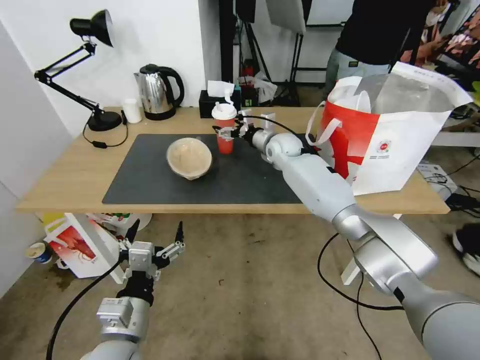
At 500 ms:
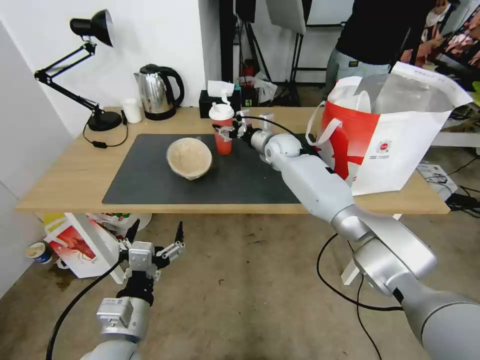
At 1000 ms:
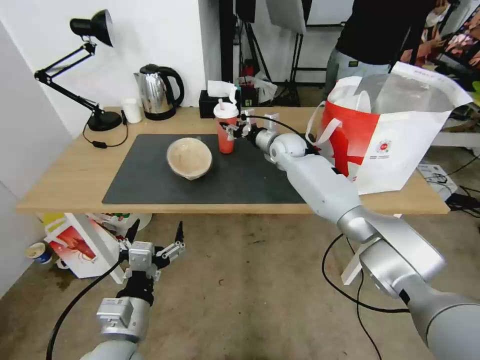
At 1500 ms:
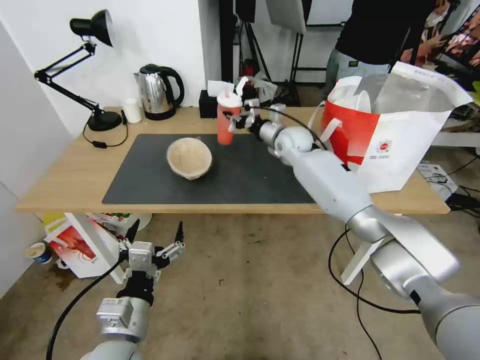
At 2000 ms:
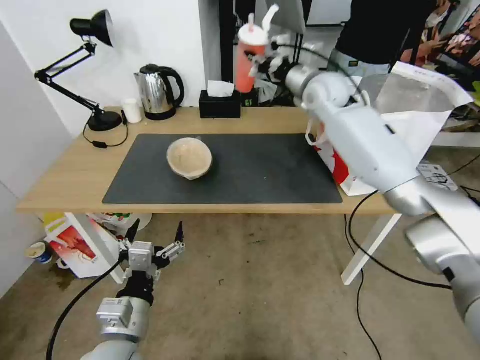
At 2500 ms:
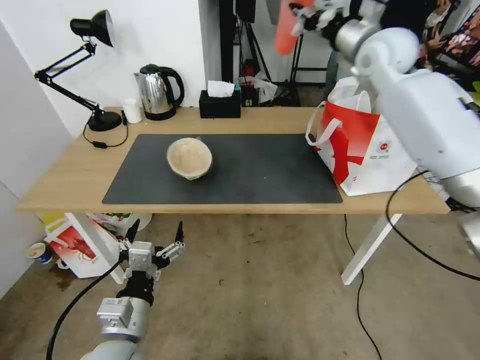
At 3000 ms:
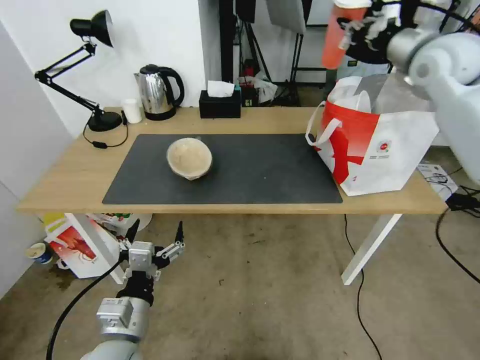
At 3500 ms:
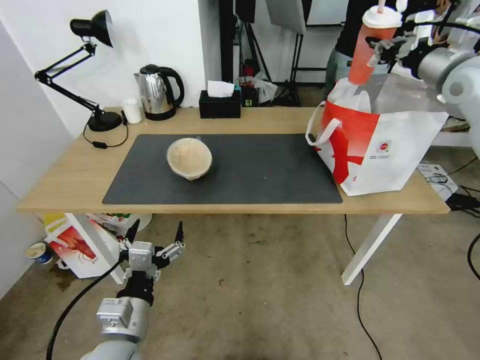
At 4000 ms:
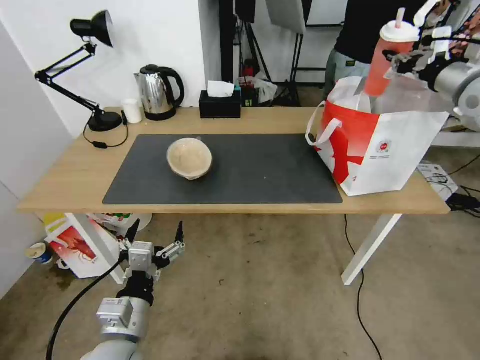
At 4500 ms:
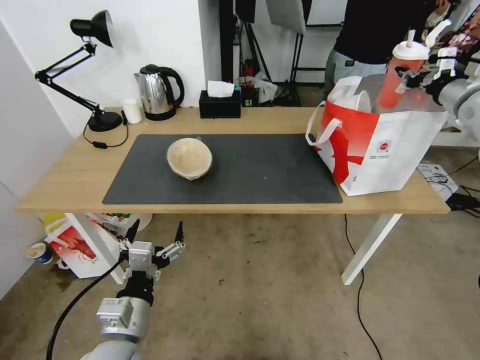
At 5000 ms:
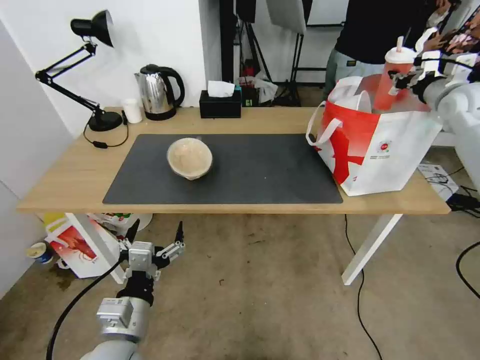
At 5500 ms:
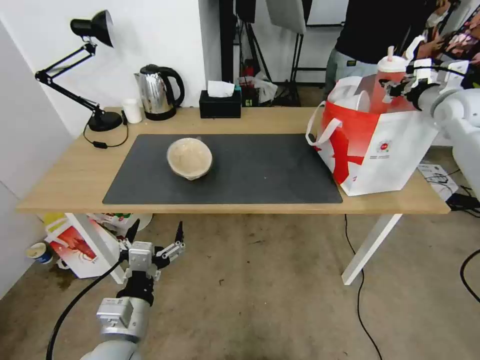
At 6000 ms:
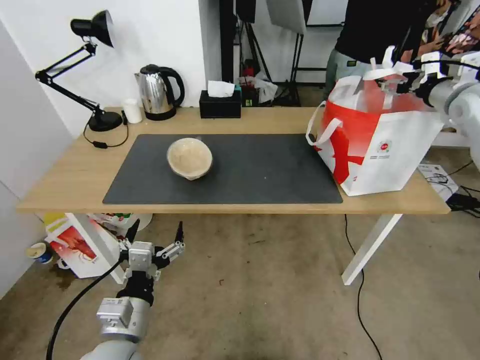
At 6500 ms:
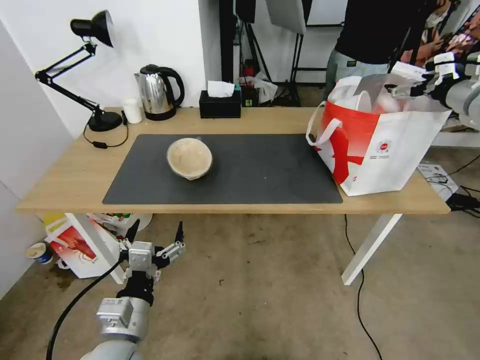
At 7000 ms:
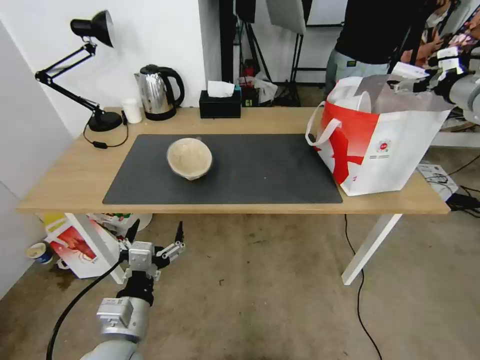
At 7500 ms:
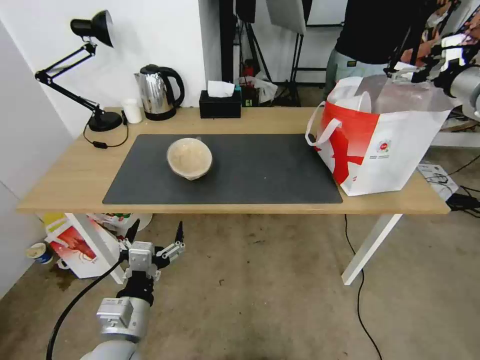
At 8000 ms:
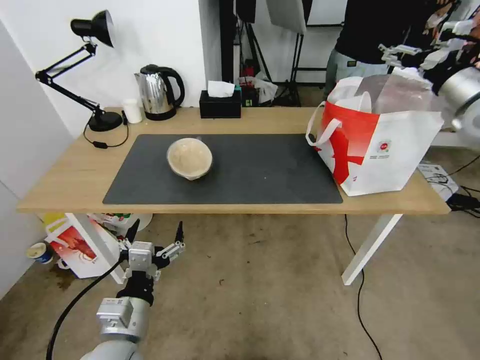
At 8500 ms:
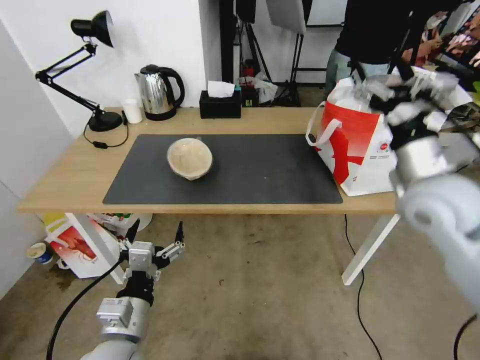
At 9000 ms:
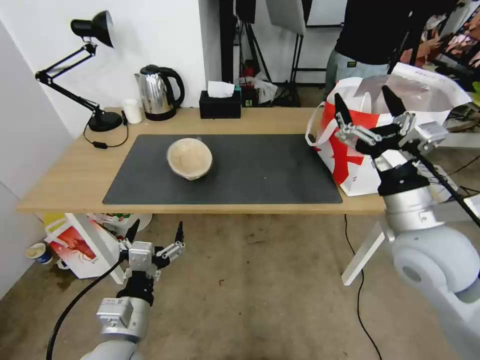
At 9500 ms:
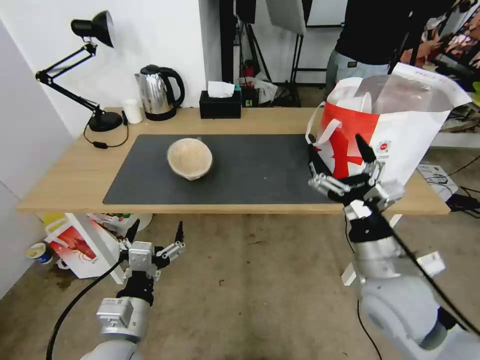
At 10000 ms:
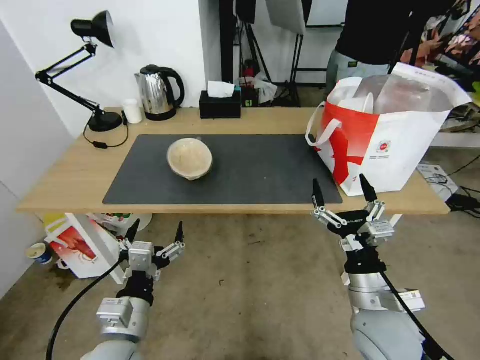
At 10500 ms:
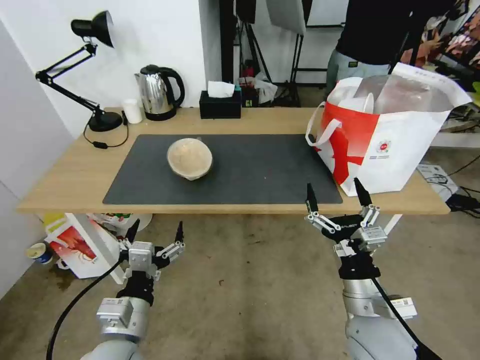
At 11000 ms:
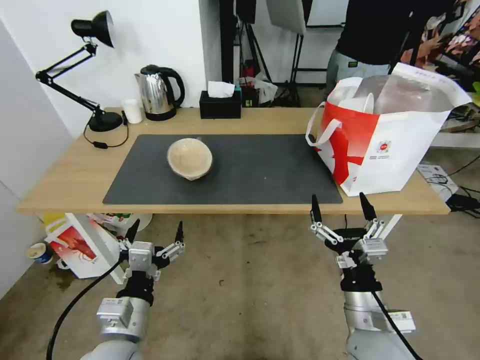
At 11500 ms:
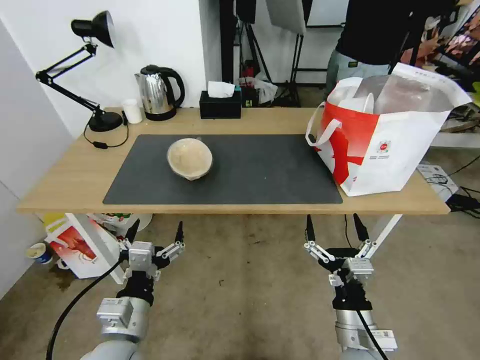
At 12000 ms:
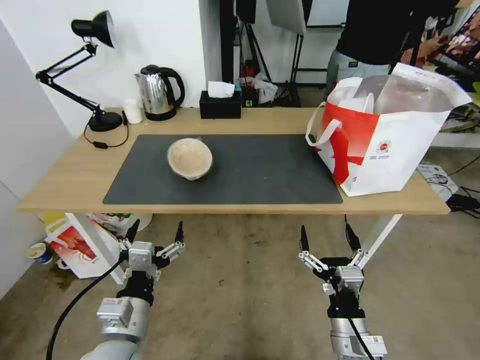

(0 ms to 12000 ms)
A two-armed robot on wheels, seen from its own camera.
Task of the whole recording: Pick up the trash from the table and place it into the takeout bag.
0 ms - 2000 ms: The right gripper goes approximately 20 cm upward, and closes its fingers.
2000 ms - 4000 ms: The right gripper travels to the right and backward by approximately 30 cm.
4000 ms - 6000 ms: The right gripper opens.
6000 ms - 8000 ms: The right gripper is displaced backward by approximately 5 cm.
8000 ms - 10000 ms: The right gripper shifts roughly 40 cm downward, backward and to the left.
10000 ms - 12000 ms: The right gripper heads downward and backward, covering approximately 10 cm.

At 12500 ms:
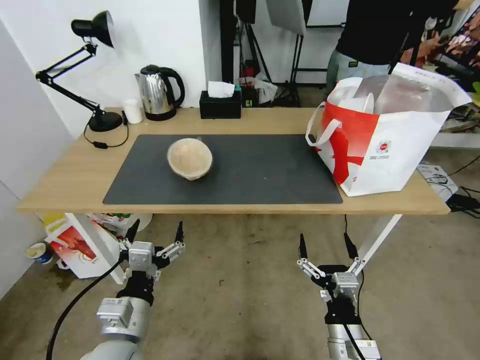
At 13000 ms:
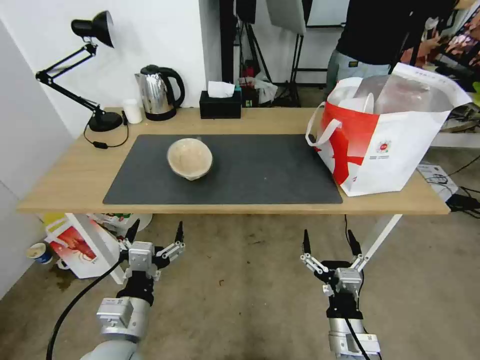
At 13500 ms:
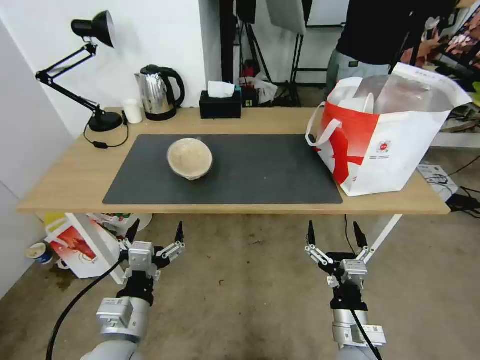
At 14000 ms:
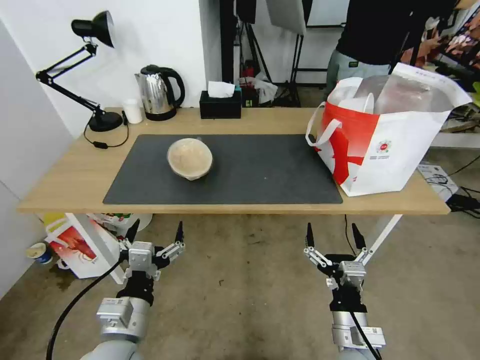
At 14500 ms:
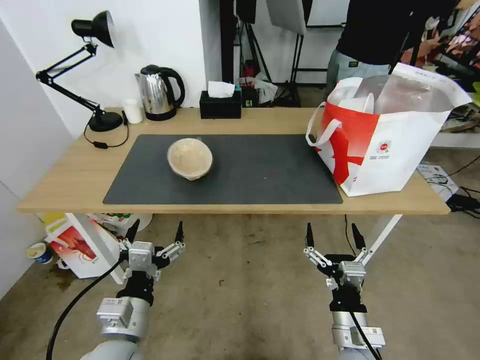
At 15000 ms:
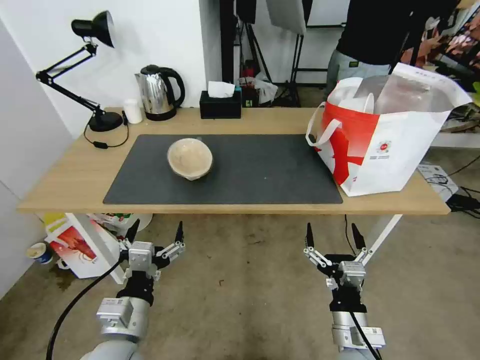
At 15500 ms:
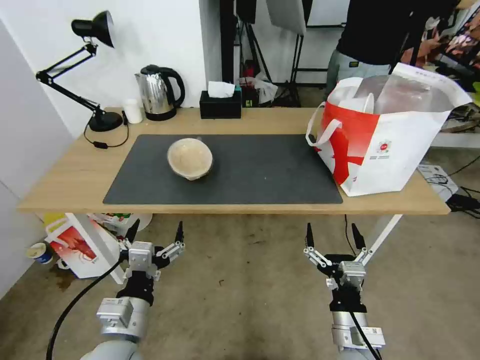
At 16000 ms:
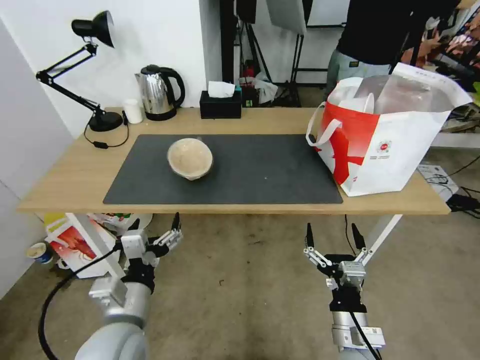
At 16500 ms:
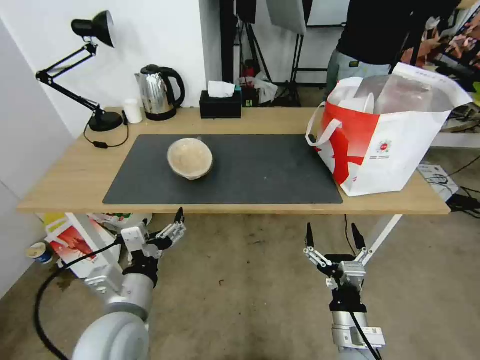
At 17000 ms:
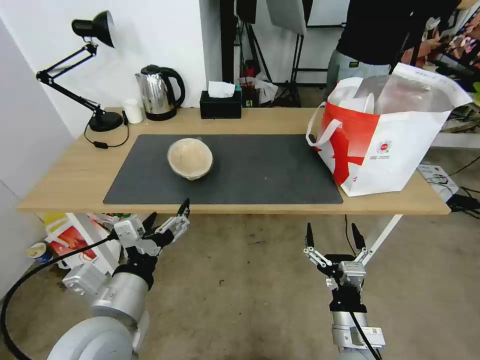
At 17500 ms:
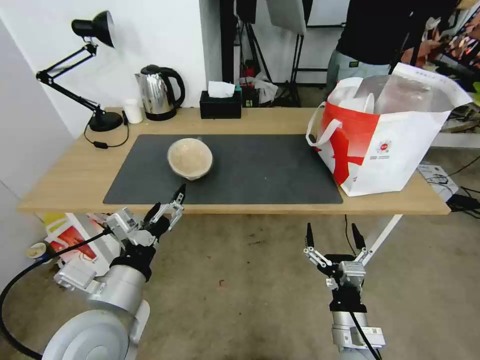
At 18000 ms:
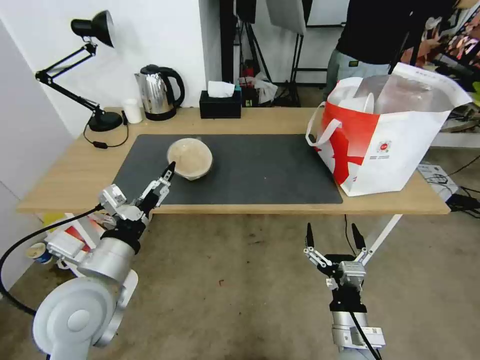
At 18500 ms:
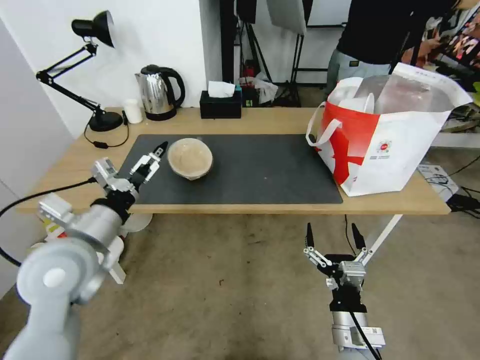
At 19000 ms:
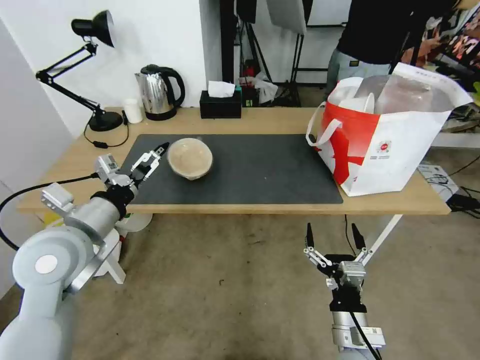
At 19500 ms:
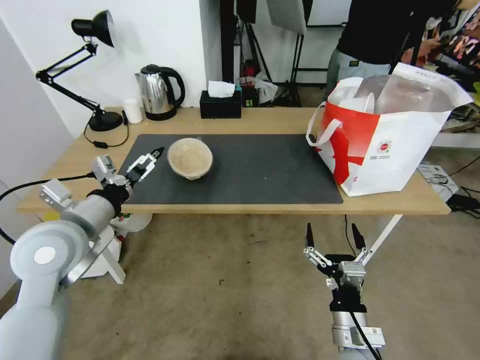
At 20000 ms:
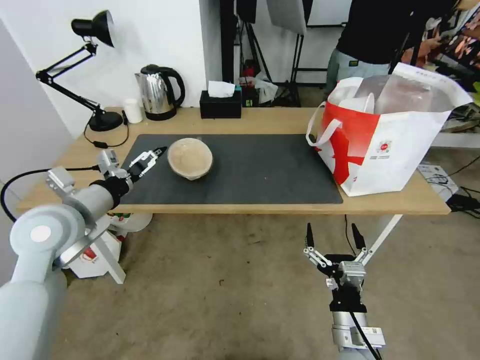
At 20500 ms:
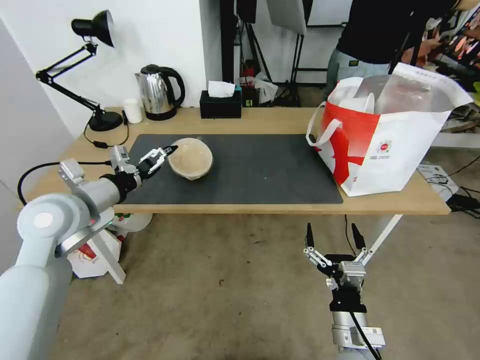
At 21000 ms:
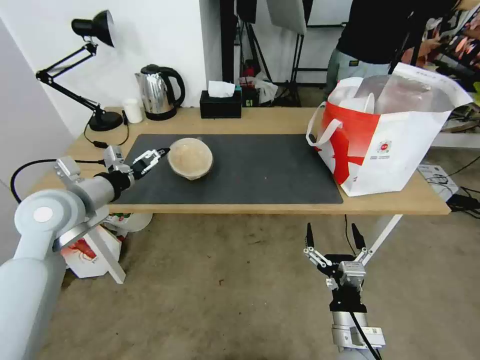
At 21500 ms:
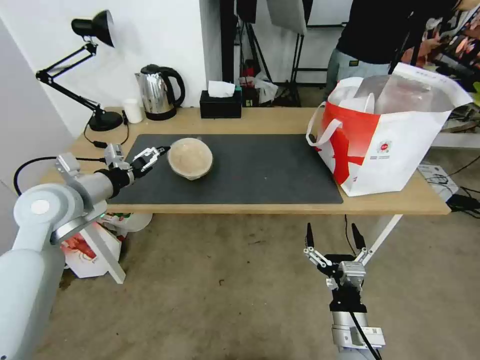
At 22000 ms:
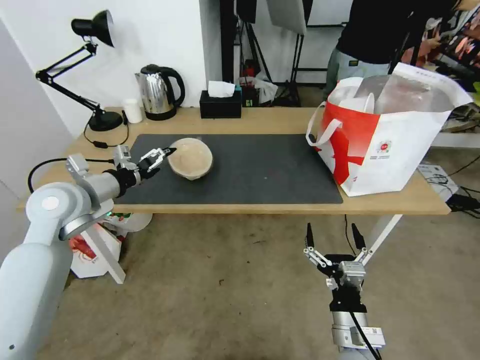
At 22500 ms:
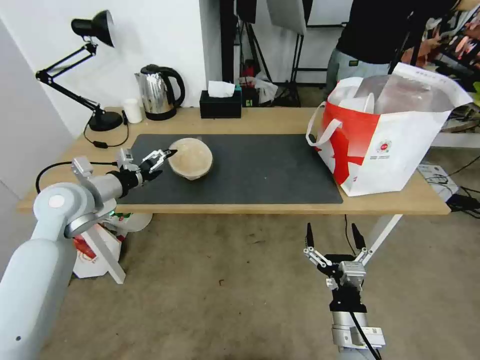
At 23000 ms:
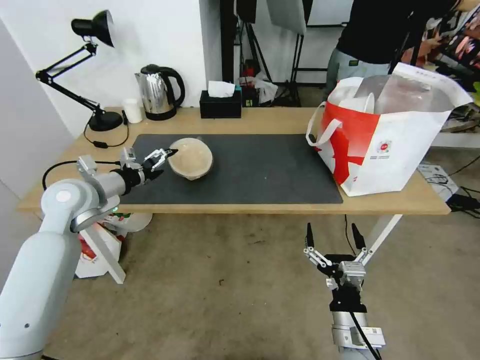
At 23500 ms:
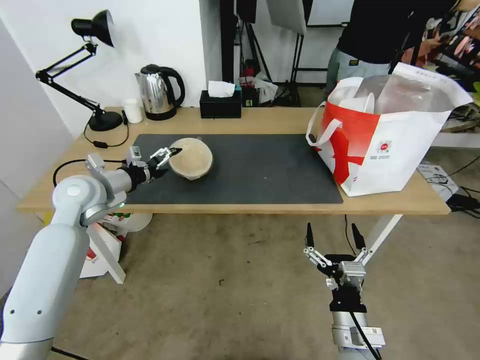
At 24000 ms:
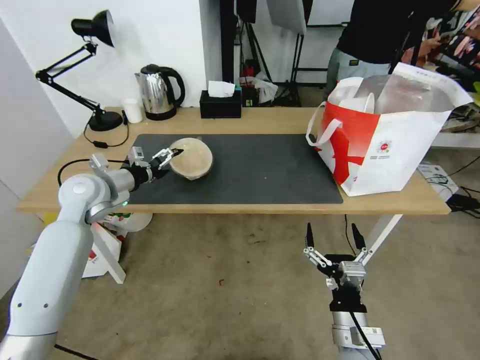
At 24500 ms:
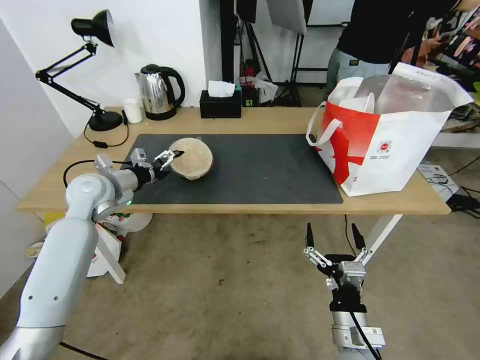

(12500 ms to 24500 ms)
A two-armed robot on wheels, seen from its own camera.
Task of the whole recording: Pick up the trash from the table and place it into the takeout bag.
12500 ms - 14500 ms: There are only small adjustments of the grippers.
14500 ms - 16500 ms: The left gripper goes some 5 cm upward.
16500 ms - 18500 ms: The left gripper heads forward, upward and to the left, covering roughly 15 cm.
18500 ms - 20500 ms: The left gripper goes roughly 10 cm forward and to the left.
20500 ms - 22500 ms: The left gripper heads forward, covering some 5 cm.
22500 ms - 24500 ms: The left gripper travels forward by roughly 5 cm.

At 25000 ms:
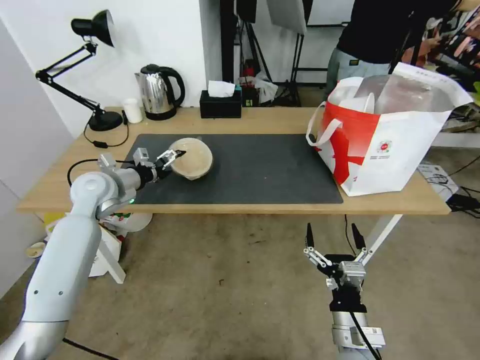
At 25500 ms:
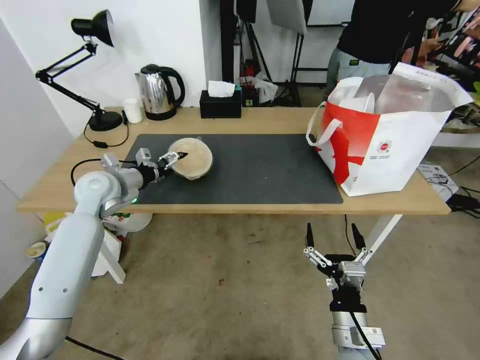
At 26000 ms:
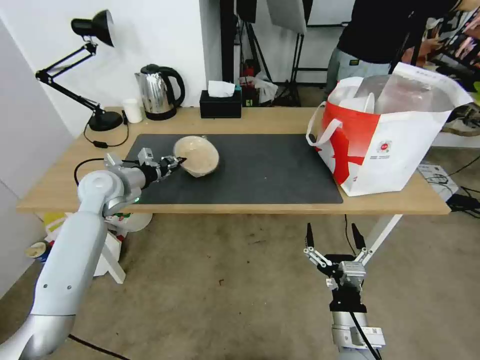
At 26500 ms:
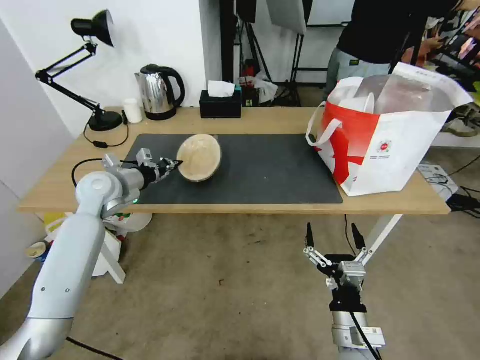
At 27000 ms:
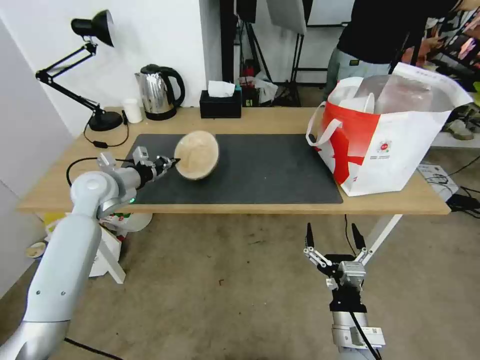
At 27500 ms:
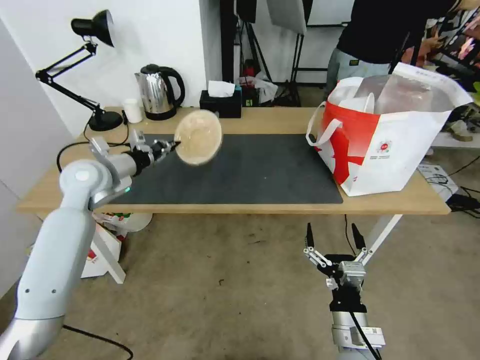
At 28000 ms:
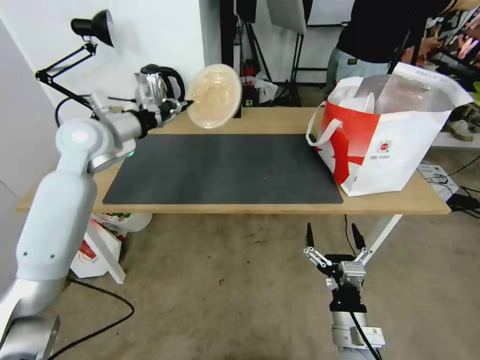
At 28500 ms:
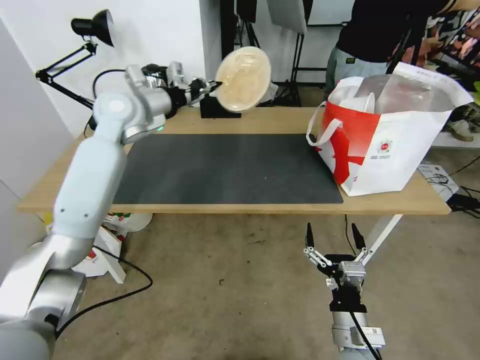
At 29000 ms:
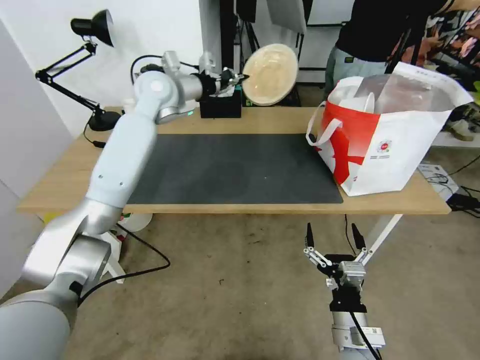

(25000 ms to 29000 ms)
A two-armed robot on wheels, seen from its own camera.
Task of the whole recording: Pick up the trash from the table and place it into the takeout bag.
25000 ms - 27000 ms: The left gripper closes up.
27000 ms - 29000 ms: The left gripper is displaced upward, to the right and forward by about 25 cm.
